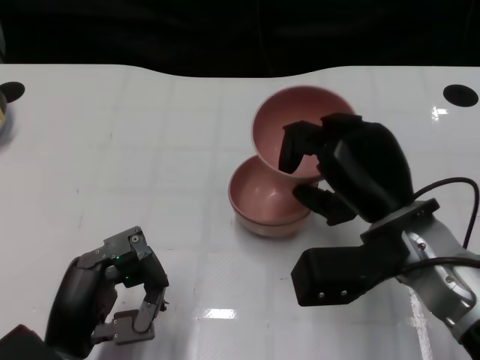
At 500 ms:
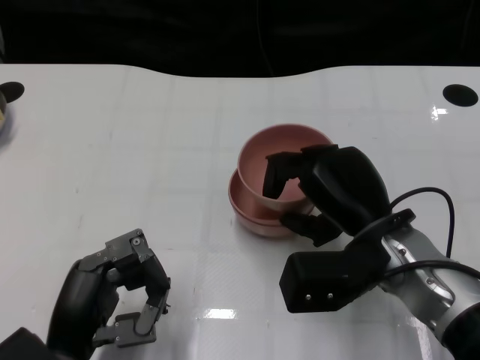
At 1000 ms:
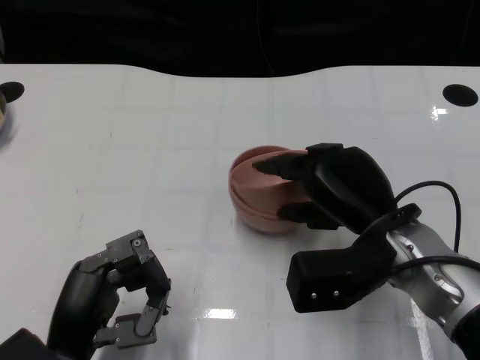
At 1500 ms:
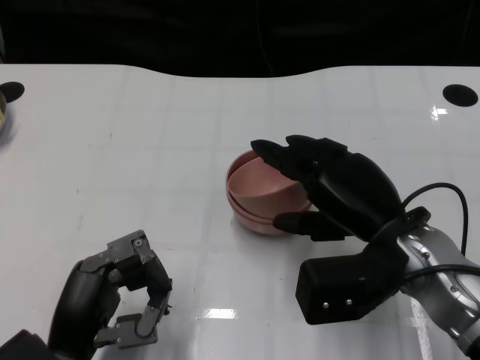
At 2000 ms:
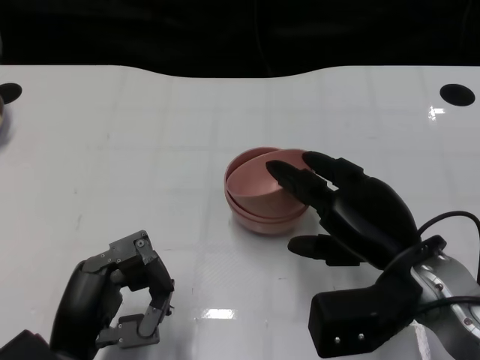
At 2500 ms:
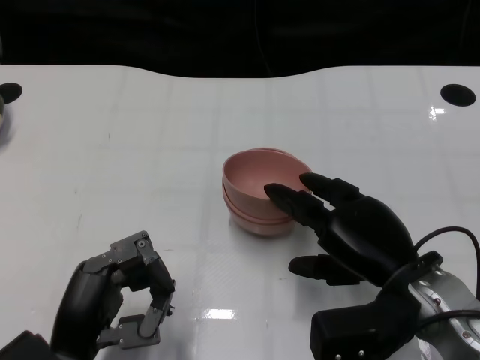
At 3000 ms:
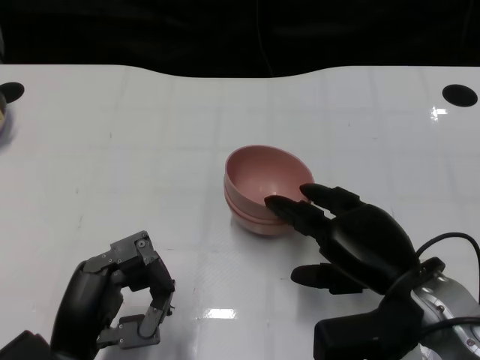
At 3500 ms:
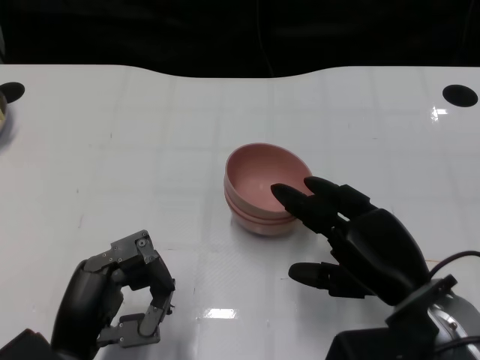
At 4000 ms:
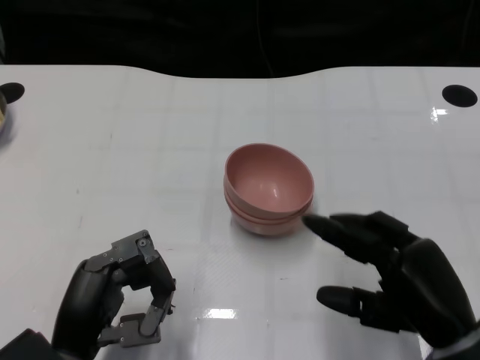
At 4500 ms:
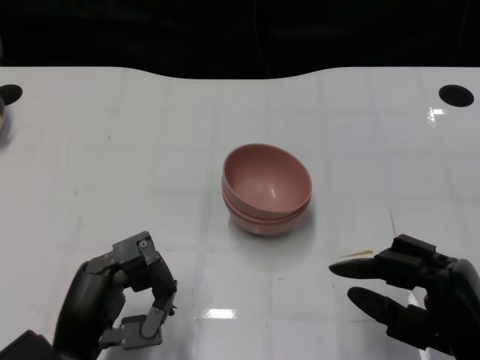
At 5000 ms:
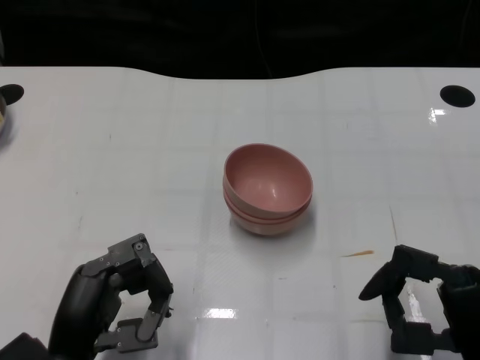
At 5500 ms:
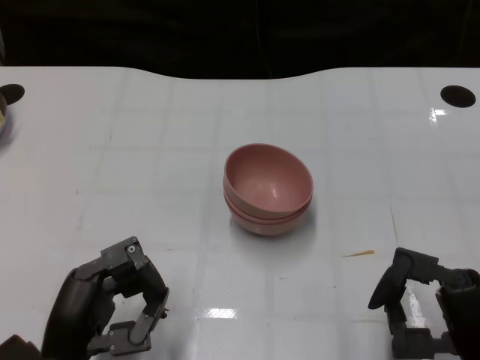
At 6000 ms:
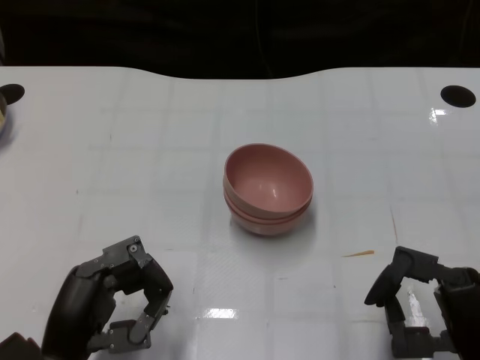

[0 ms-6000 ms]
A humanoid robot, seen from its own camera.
Task of the whole recording: Pick up the bowl on one side of the table and place it on top of the middle bowl, then pick up the bowl on the other side of the table and place it on top of the middle bowls.
Step, 0 ms to 3500 ms: Place the bowl on the right onto the bowl in the middle with right gripper.
2000 ms to 4000 ms: The right hand travels backward by some 5 cm.

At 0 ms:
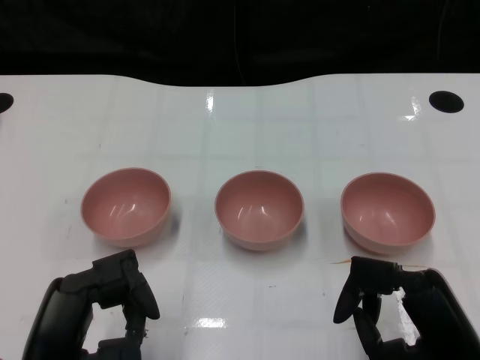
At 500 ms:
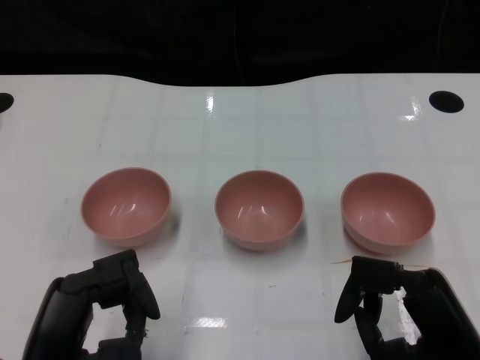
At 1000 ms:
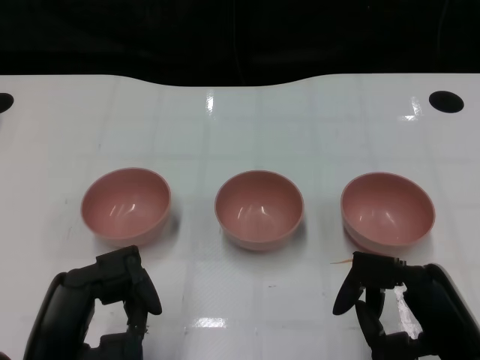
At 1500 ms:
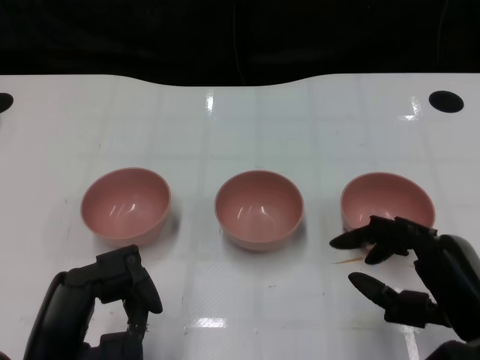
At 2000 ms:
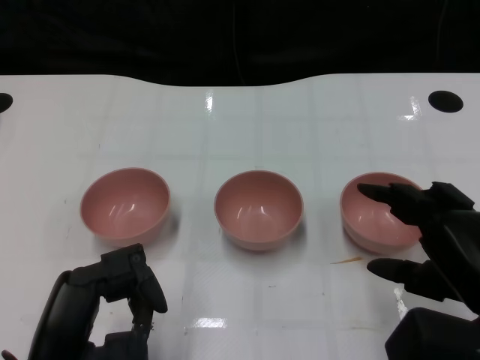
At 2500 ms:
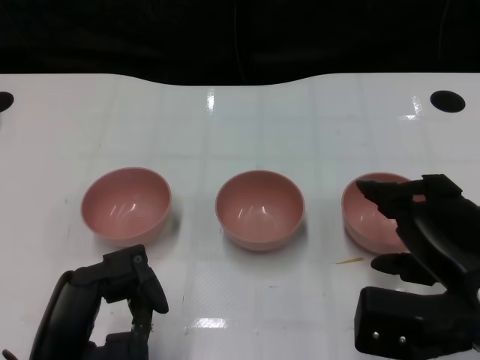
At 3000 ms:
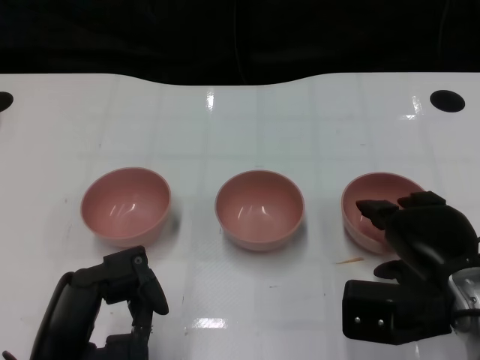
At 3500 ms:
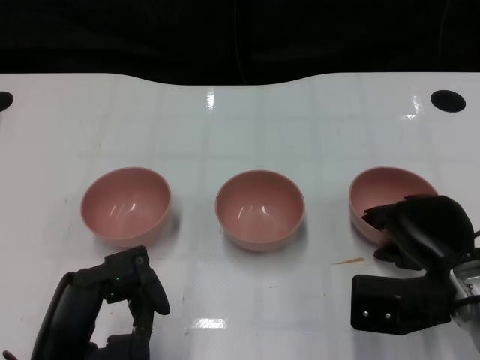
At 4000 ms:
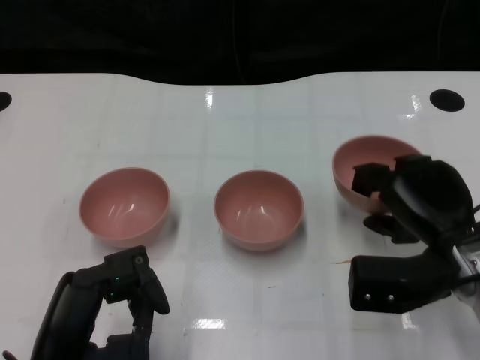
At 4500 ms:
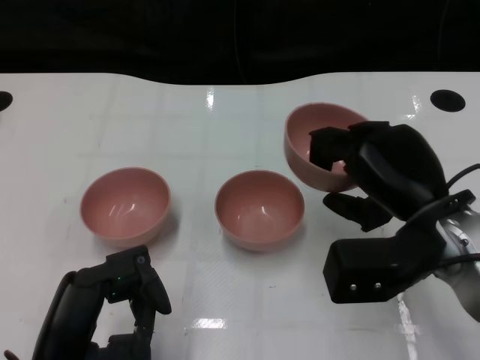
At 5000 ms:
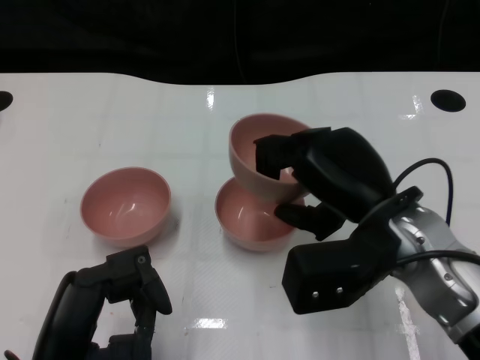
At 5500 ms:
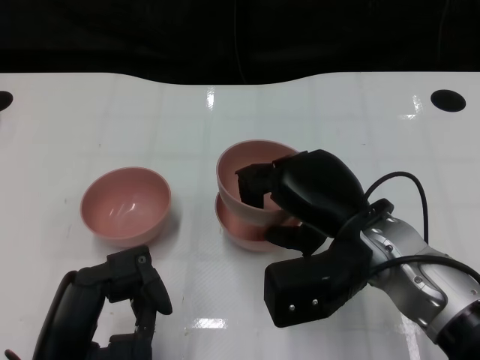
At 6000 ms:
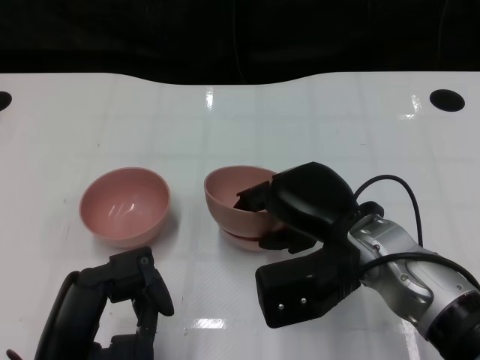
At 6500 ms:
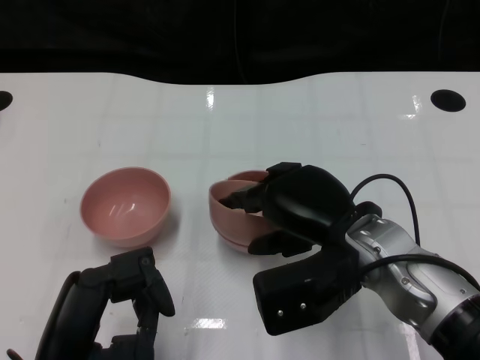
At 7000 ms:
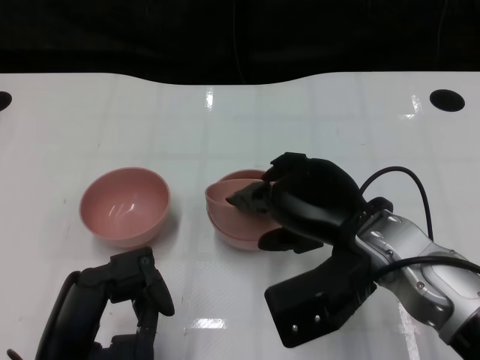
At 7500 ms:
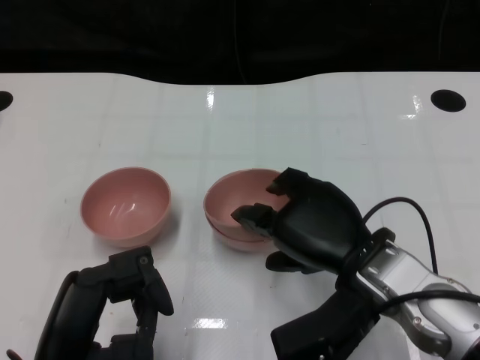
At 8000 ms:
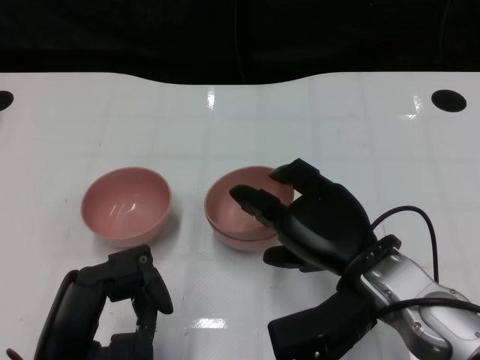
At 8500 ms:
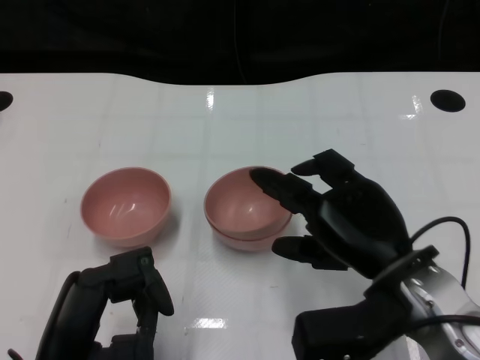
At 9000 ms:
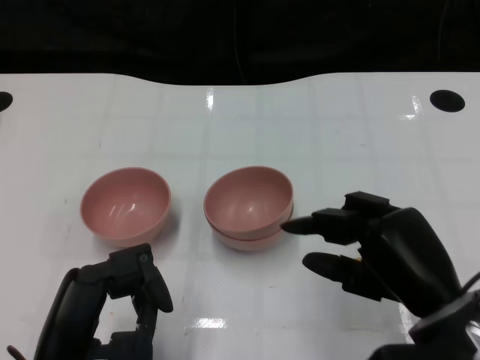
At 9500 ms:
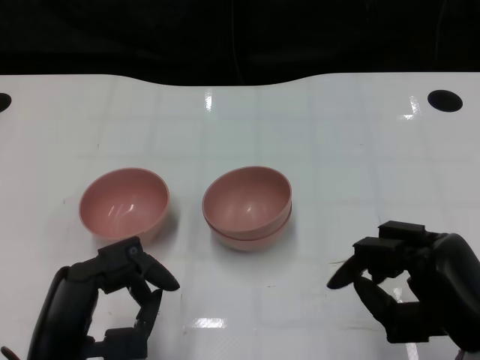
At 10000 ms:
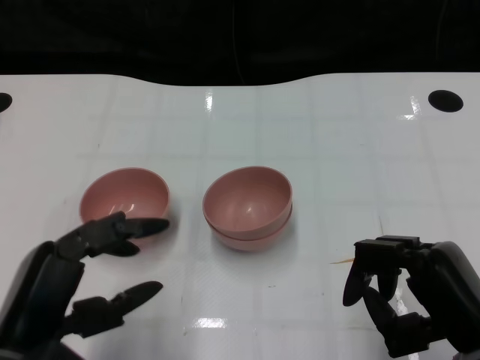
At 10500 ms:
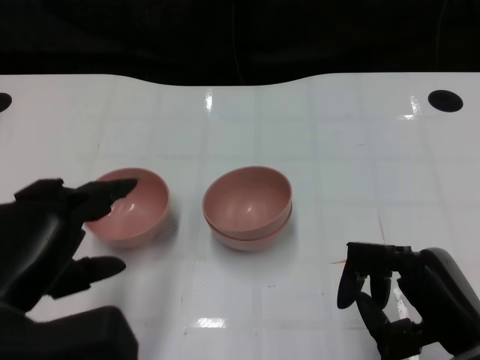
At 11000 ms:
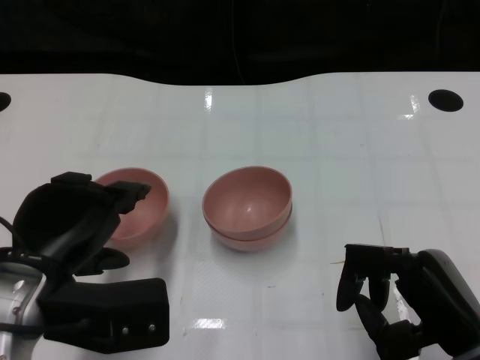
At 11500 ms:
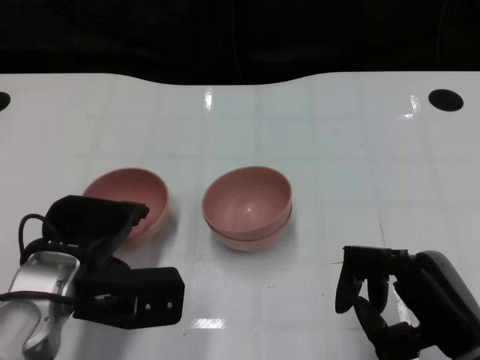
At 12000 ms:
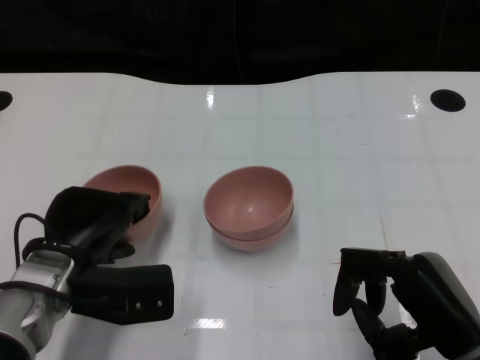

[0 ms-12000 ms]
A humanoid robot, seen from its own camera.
Task of the whole recording: Pick up the bowl on one side of the table and place it on top of the middle bowl, then pick up the bowl on the other side of the table and place it on top of the middle bowls.
Step, 1500 ms to 3500 ms: Grasp the bowl on the right with the right gripper.
Step, 4000 ms to 8500 ms: Place the bowl on the right onto the bowl in the middle with right gripper.
2000 ms to 4000 ms: The right hand goes approximately 10 cm forward.
4000 ms to 6000 ms: The right hand heads to the left, covering approximately 10 cm.
8000 ms to 10000 ms: The right hand heads to the right and backward, covering some 10 cm.
10000 ms to 12000 ms: The left hand heads forward, covering about 10 cm.

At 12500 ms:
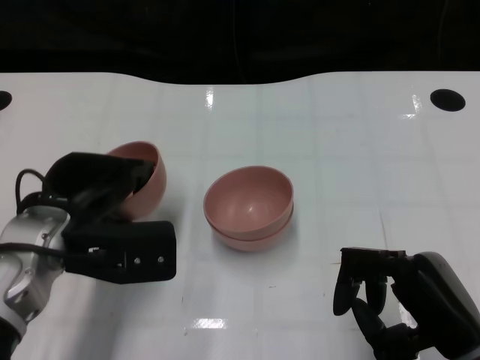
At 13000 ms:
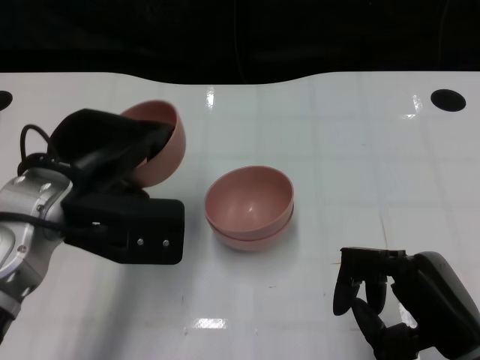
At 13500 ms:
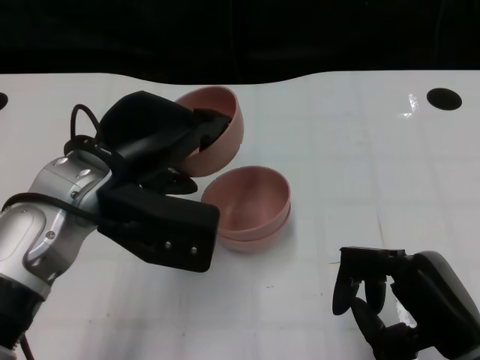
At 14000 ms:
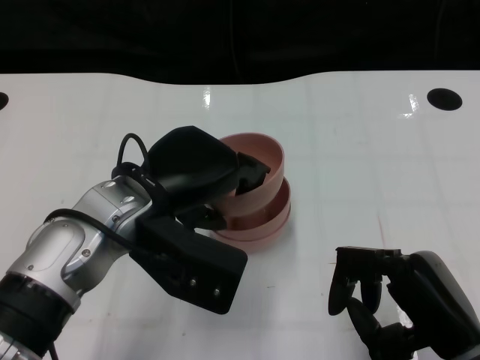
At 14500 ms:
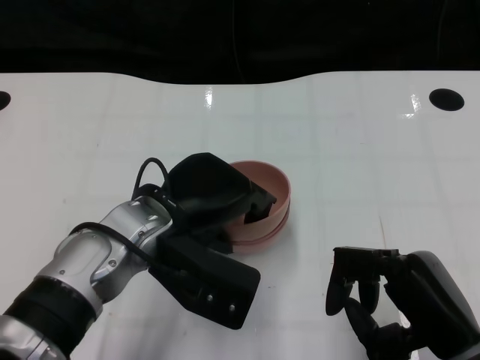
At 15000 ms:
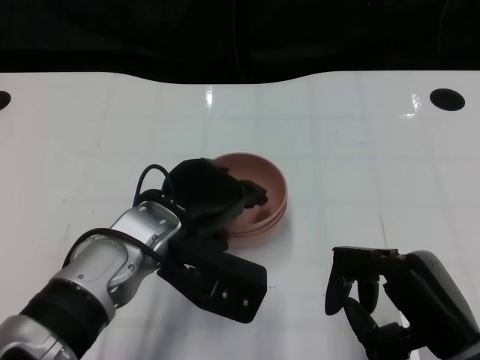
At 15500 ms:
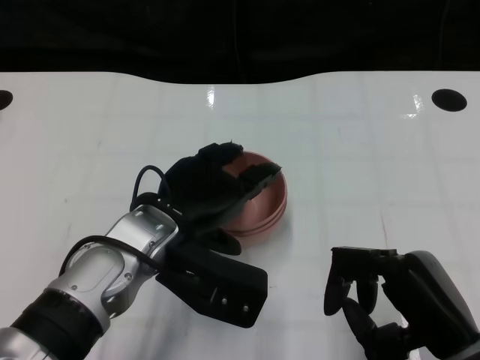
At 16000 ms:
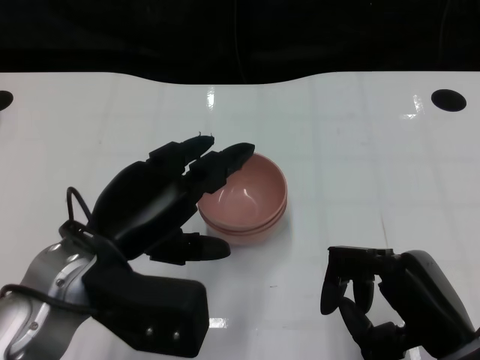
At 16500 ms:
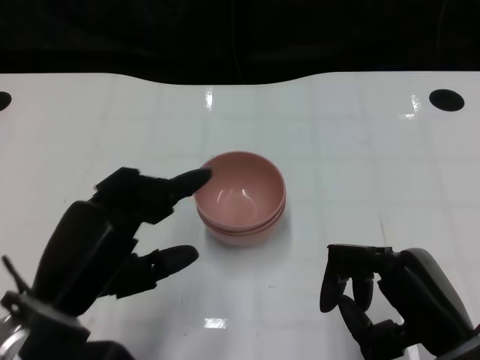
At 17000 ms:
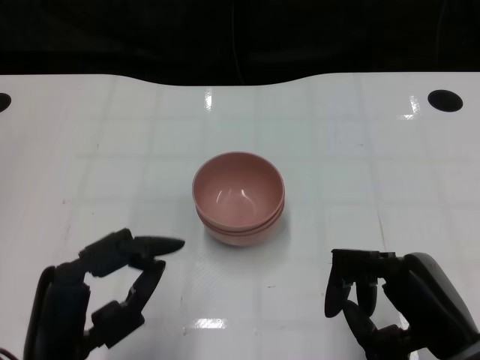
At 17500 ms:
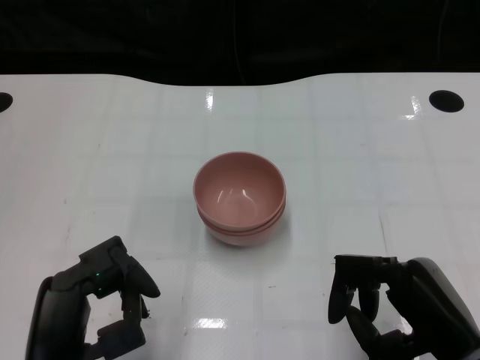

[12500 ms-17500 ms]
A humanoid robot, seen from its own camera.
Task of the whole recording: Pick up the bowl on one side of the table and place it on top of the middle bowl, then pick up the bowl on the other side of the table and place it on top of the middle bowls.
Step, 12500 ms to 15500 ms: Place the bowl on the left onto the bowl in the middle with left gripper.
12500 ms to 15000 ms: The left hand heads to the right, covering some 10 cm.
15000 ms to 17500 ms: The left hand moves backward and to the left, about 15 cm.

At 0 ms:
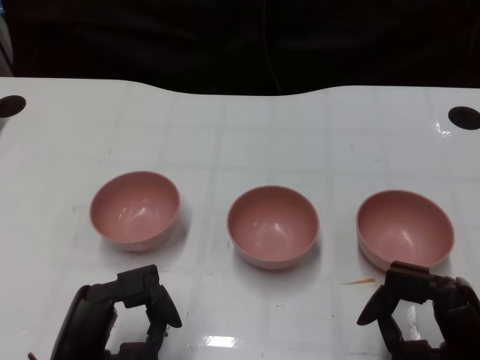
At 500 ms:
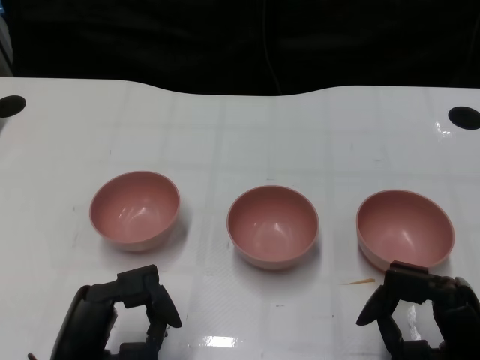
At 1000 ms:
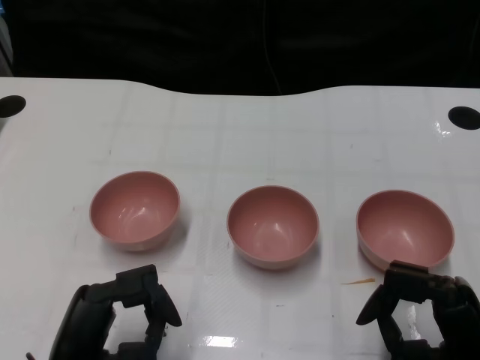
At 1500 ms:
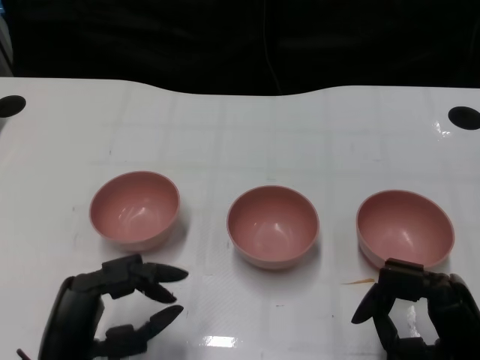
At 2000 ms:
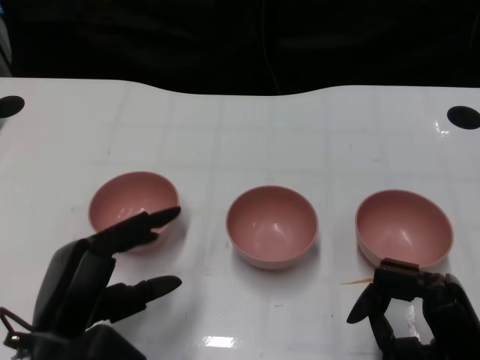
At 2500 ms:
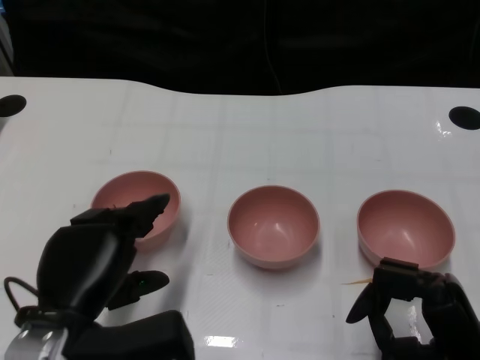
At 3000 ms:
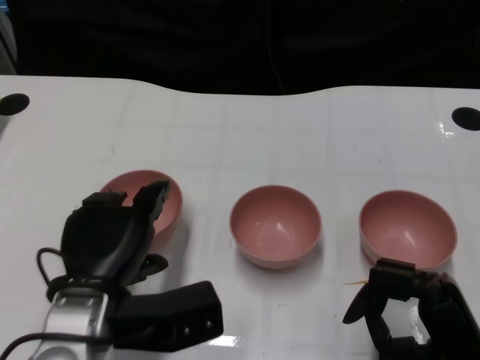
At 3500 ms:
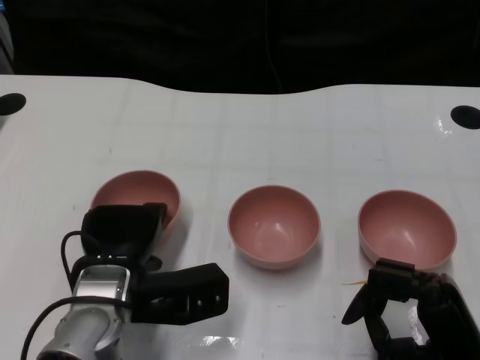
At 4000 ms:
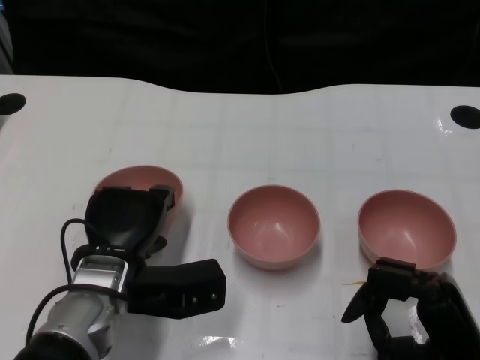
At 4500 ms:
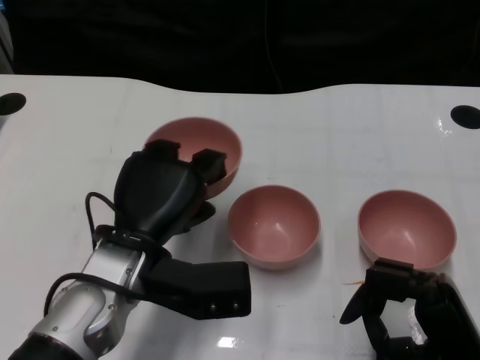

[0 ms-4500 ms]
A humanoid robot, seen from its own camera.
Task of the whole recording: Pick up the bowl on one side of the table and place it on top of the middle bowl, then pick up the bowl on the other side of the table and place it on top of the middle bowls.
Step, 1500 ms to 3500 ms: Grasp the bowl on the left with the left gripper.
2000 ms to 4500 ms: The left hand is displaced forward and to the right by some 10 cm.
